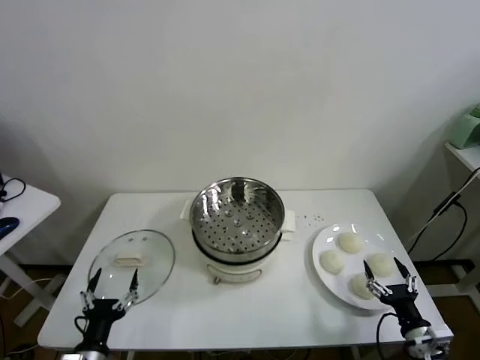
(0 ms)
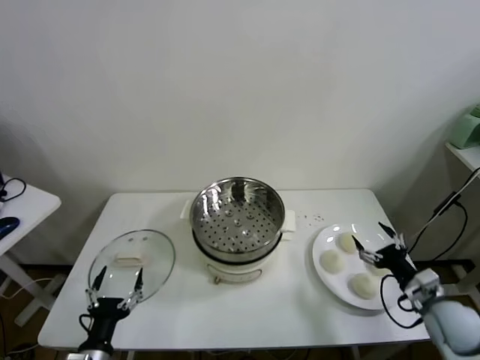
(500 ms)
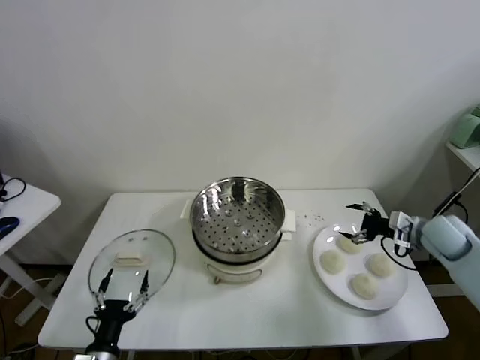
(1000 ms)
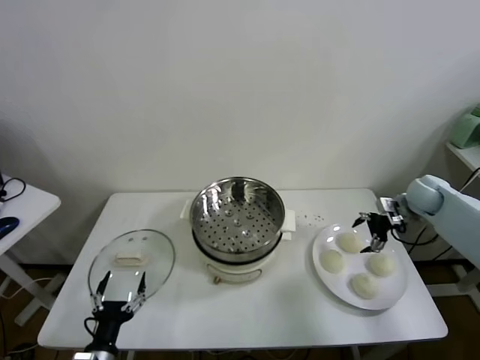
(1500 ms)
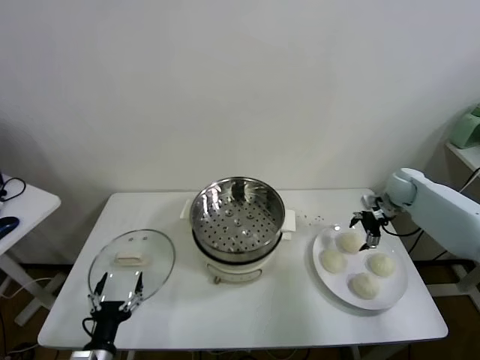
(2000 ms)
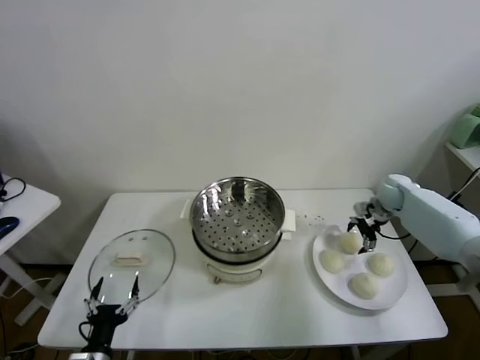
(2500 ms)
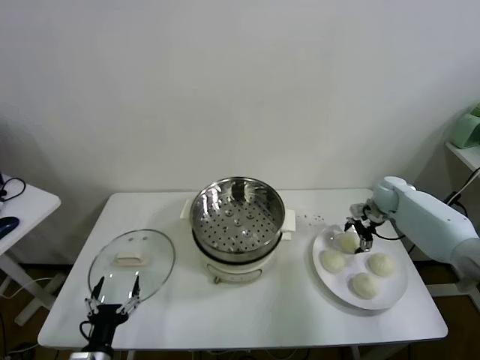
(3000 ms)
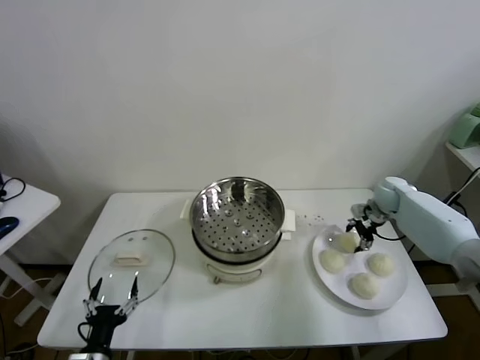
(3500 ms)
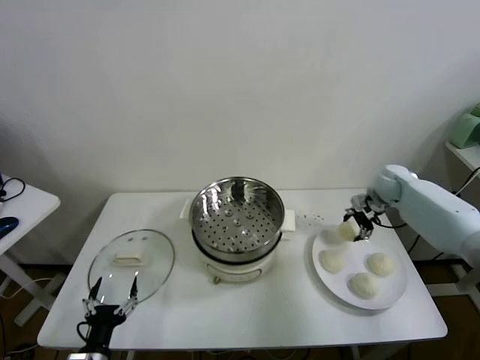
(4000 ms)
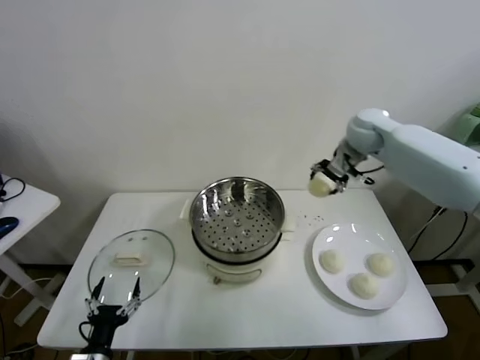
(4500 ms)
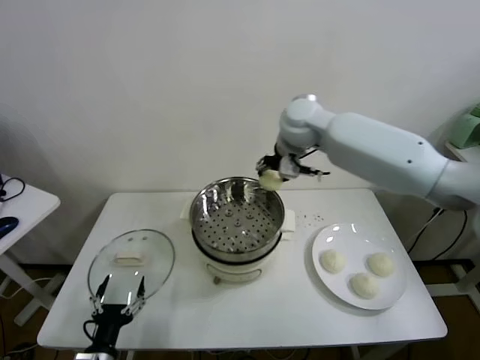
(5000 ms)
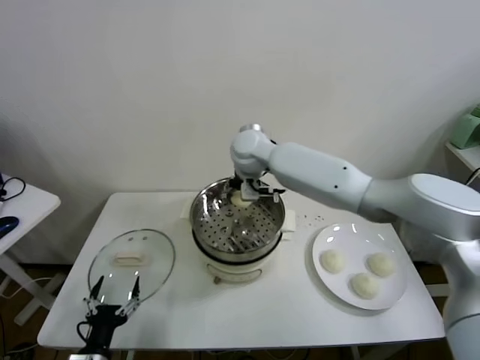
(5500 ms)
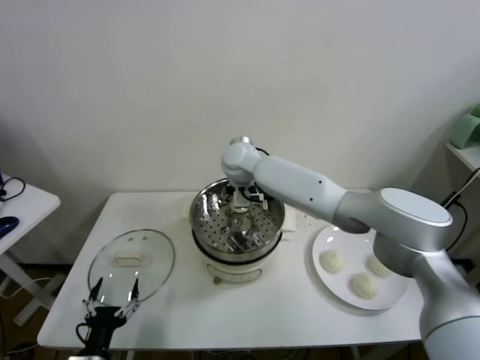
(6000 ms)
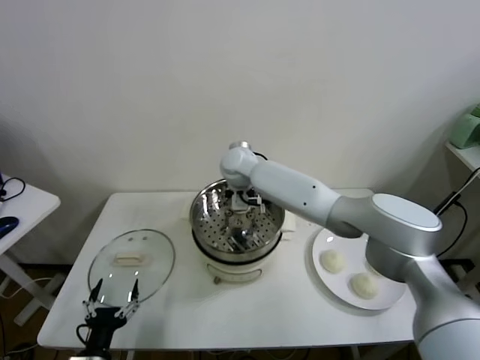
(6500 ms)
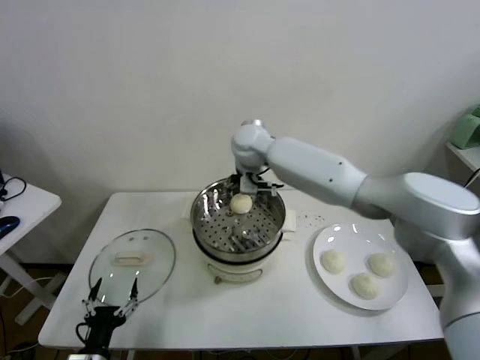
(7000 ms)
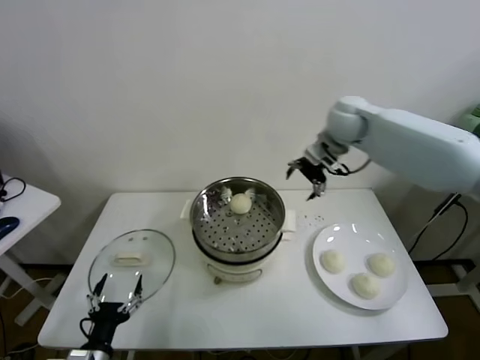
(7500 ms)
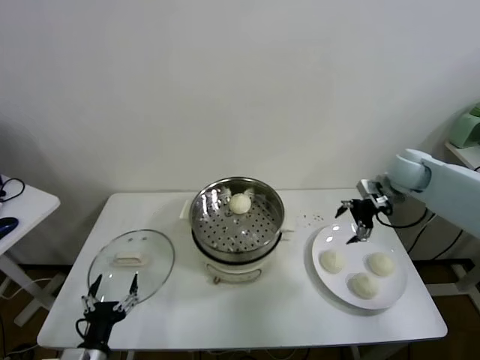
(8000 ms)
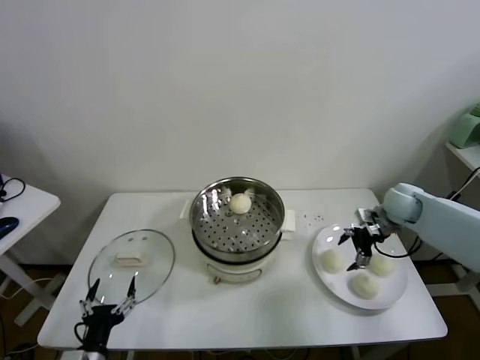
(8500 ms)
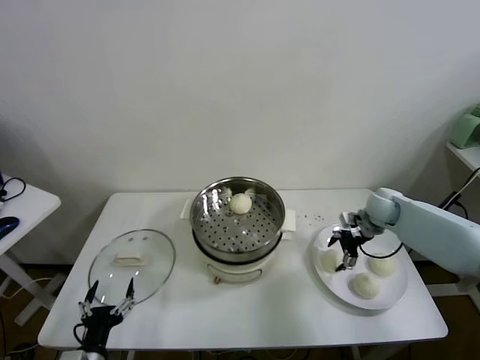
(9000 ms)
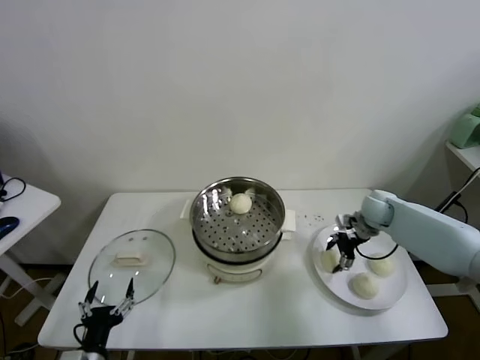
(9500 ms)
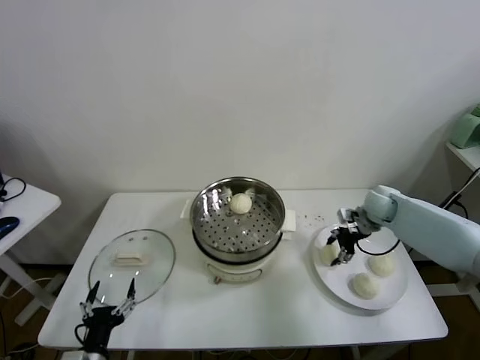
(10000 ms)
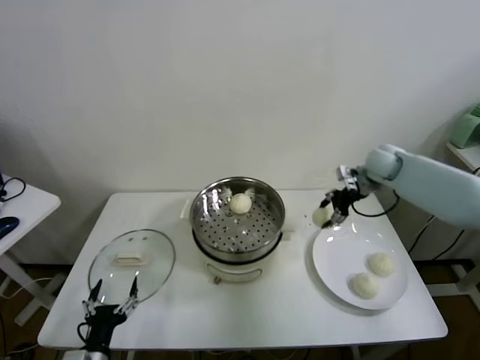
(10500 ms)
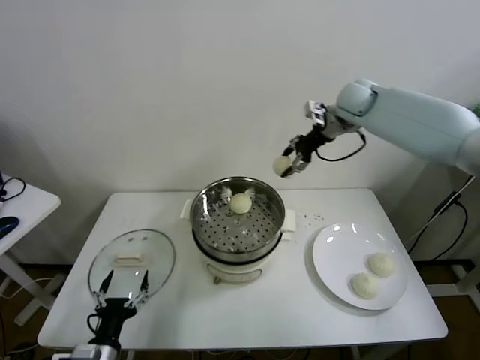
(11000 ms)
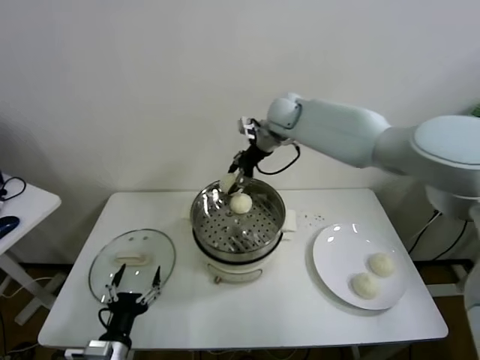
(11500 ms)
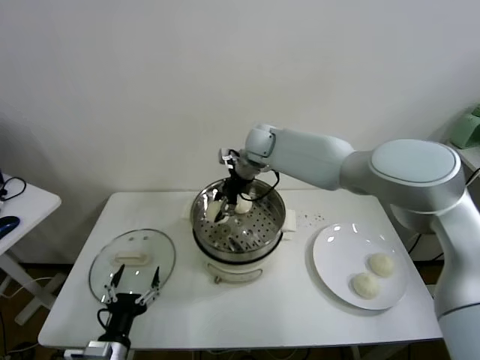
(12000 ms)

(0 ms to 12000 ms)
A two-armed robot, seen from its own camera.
Task of the whole recording: take steamed baozi put them in steamer.
Step, 0 ms - 3000 ms: Grasp the baozi in the plate with right gripper.
Step, 3500 ms - 6500 ms: Place the baozi on the steamer with right gripper.
Step, 7000 ms - 9000 ms: Grasp the baozi in the plate with right gripper.
2000 ms - 4000 ms: The right gripper shifts by about 5 cm, and closes its fingers.
4000 ms - 6000 ms: The right gripper shifts some 40 cm to the left.
6000 ms - 8000 ms: The right gripper goes approximately 40 cm to the right, and opens its fingers.
8000 ms - 10000 ms: The right gripper shifts approximately 10 cm downward, and closes its fingers.
10000 ms - 12000 ms: The right gripper heads to the left and upward, covering about 35 cm.

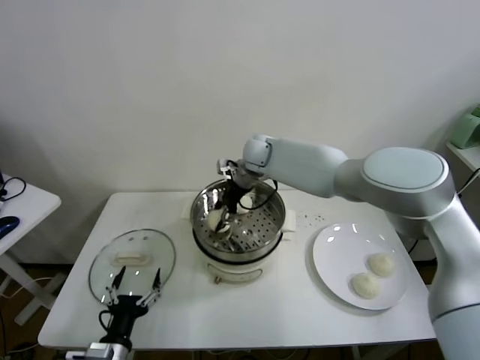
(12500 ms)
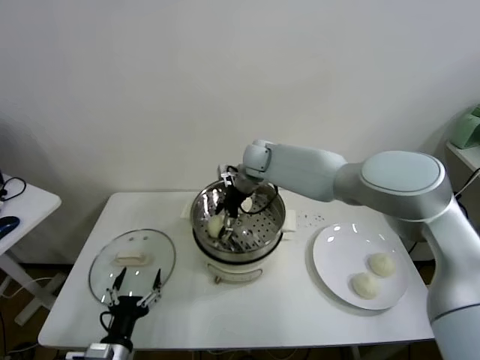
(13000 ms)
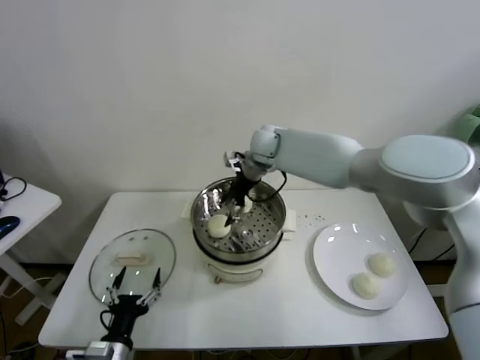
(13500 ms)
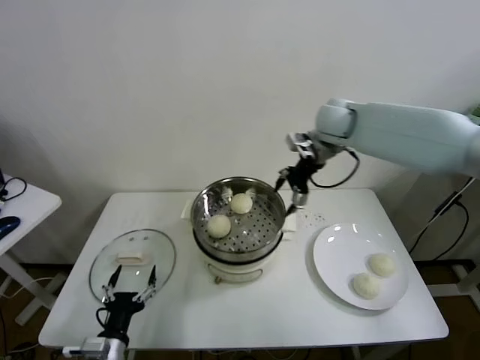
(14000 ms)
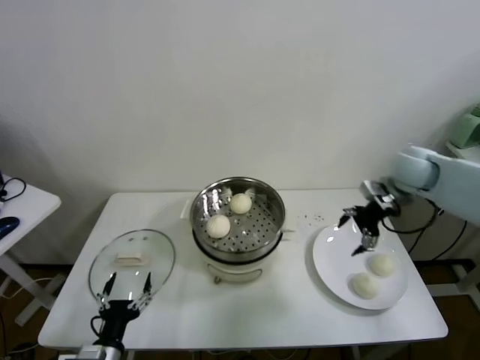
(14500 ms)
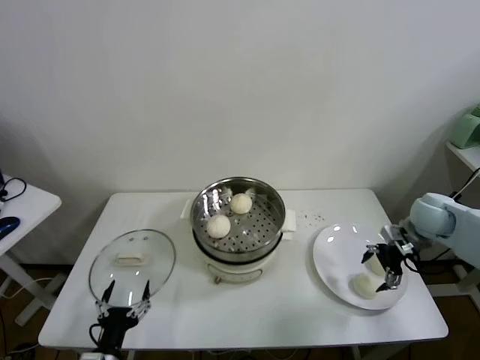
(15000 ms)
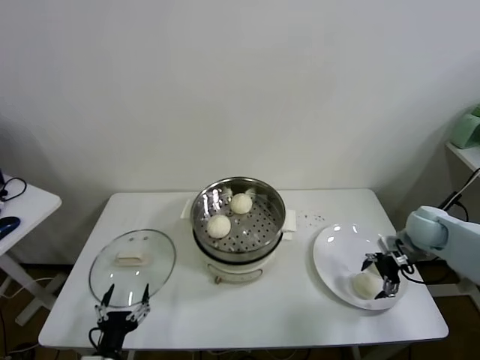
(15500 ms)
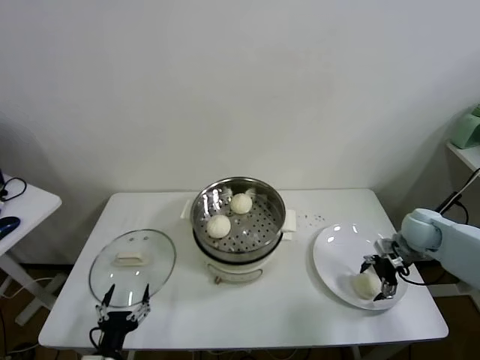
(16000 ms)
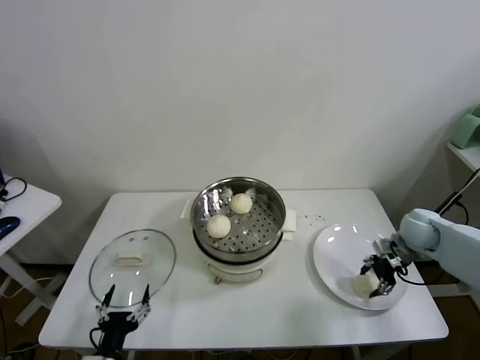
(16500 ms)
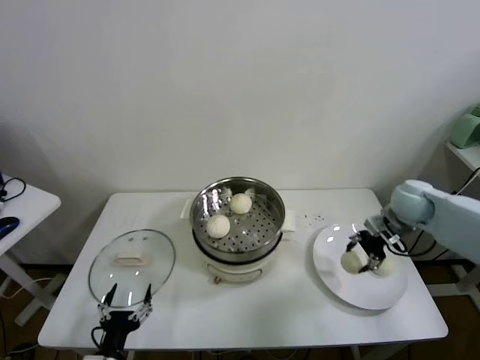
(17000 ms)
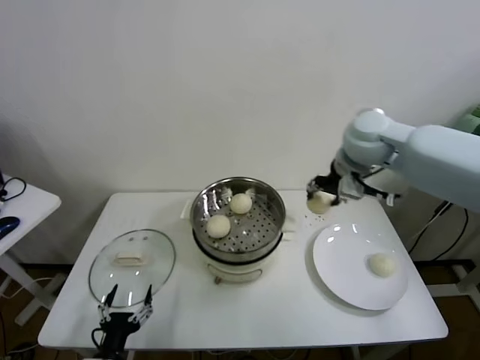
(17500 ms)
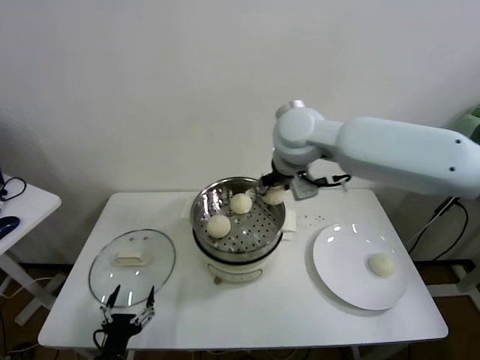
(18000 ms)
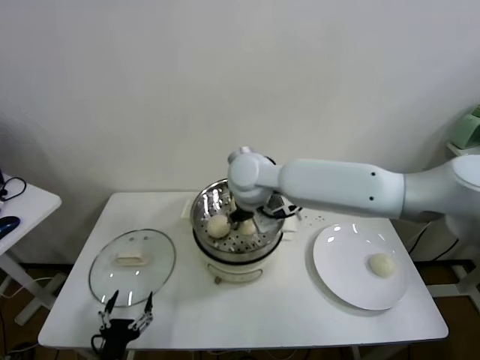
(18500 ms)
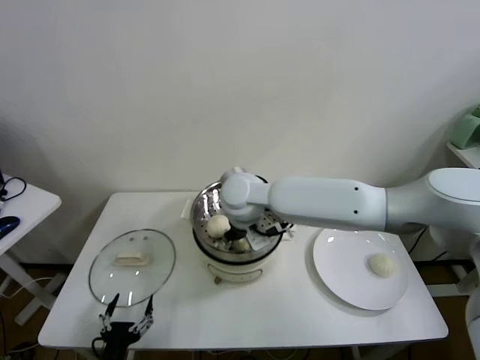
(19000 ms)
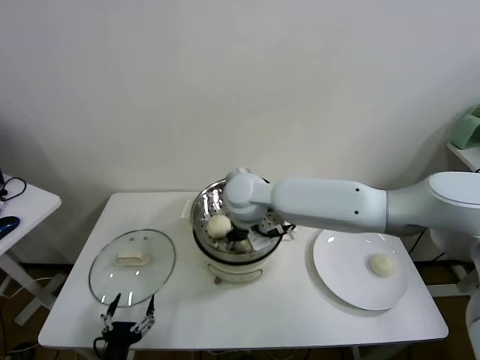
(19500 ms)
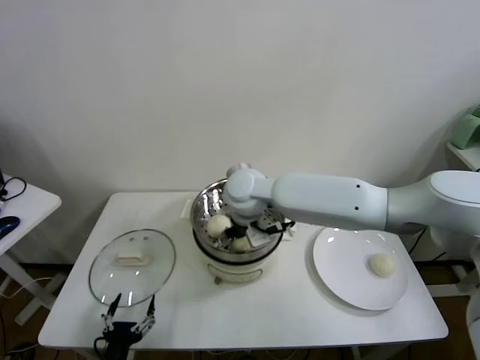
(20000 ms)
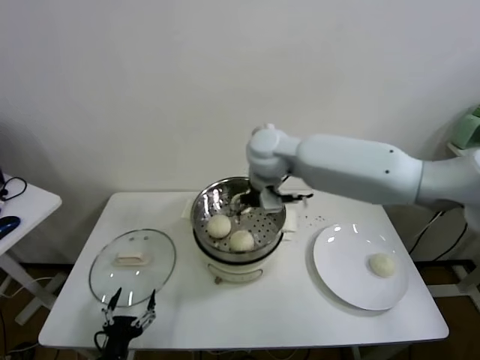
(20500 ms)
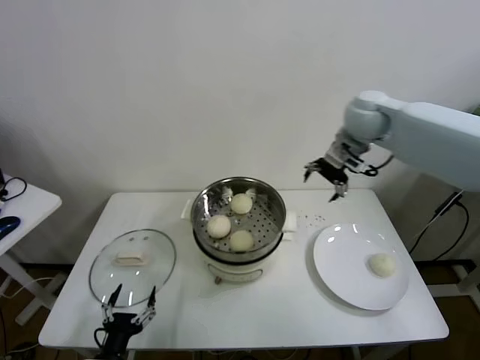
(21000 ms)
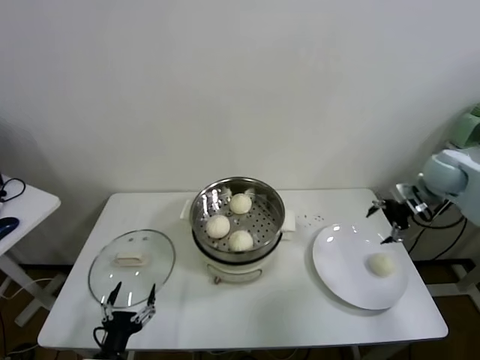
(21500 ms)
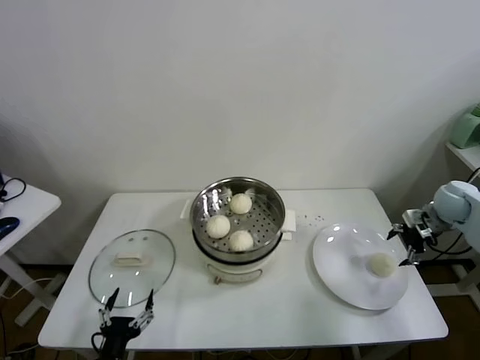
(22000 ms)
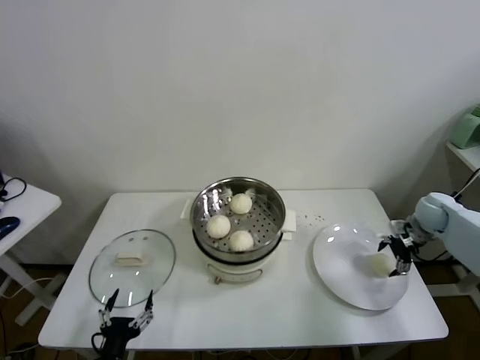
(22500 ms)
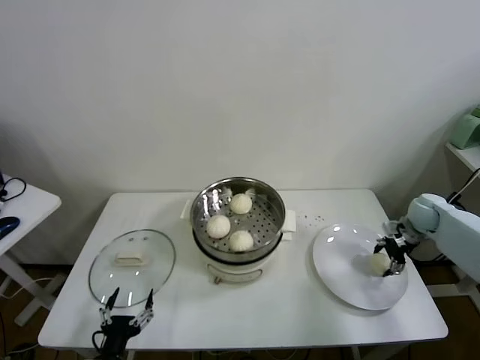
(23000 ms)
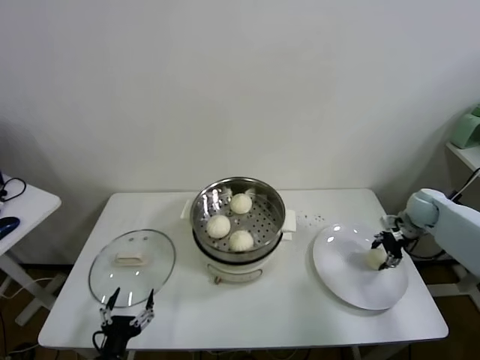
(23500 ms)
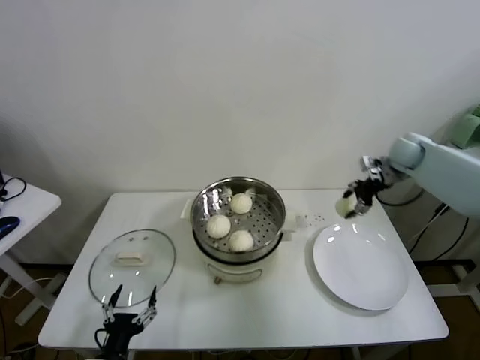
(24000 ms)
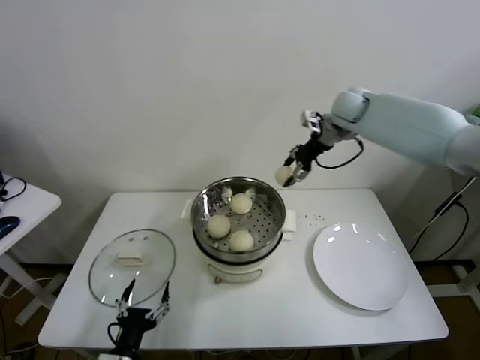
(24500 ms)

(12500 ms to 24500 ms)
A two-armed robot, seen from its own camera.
Task of the whole recording: take steamed baozi put them in steamer.
Step, 13500 ms - 16000 ms: Grasp the baozi in the plate with right gripper.
Step, 16500 ms - 19500 ms: Place the baozi on the steamer with right gripper.
Step, 20000 ms - 22500 ms: Grasp the baozi in the plate with right gripper.
12500 ms - 14500 ms: The right gripper is displaced to the right by about 35 cm, and opens its fingers.
14500 ms - 16500 ms: The right gripper heads downward, covering roughly 15 cm, and closes its fingers.
16500 ms - 18500 ms: The right gripper heads to the left and upward, covering about 50 cm.
18500 ms - 20500 ms: The right gripper shifts by roughly 5 cm, and opens up.
20500 ms - 22500 ms: The right gripper travels to the right and downward by some 50 cm.
22500 ms - 24500 ms: The right gripper is displaced to the left, upward and forward by approximately 35 cm, and closes.

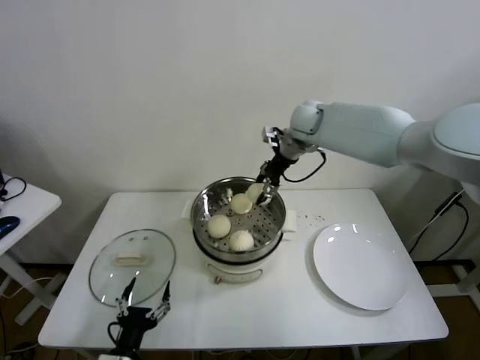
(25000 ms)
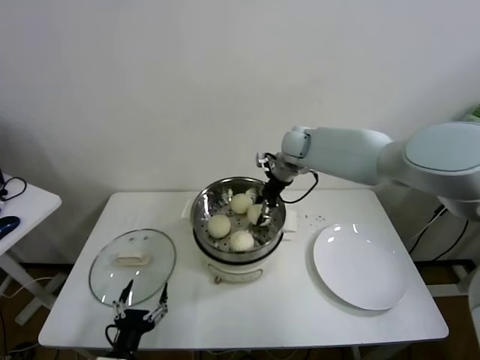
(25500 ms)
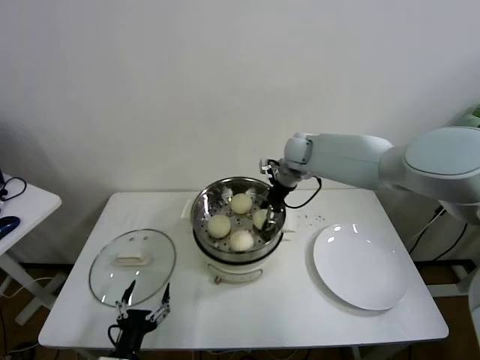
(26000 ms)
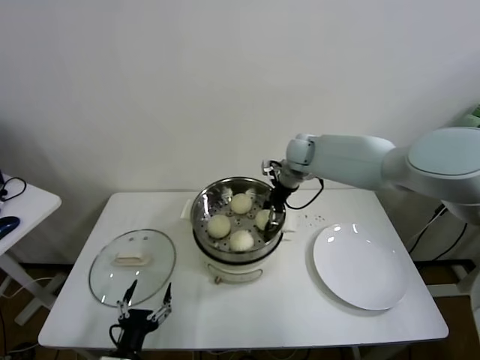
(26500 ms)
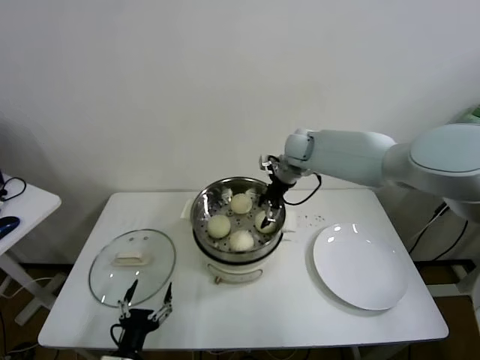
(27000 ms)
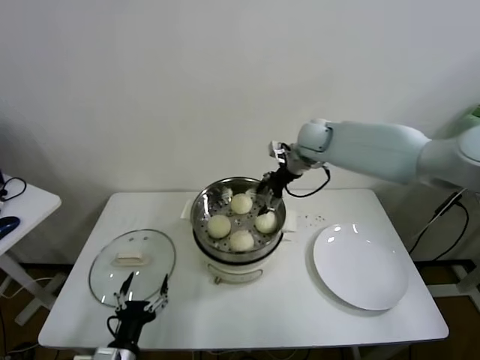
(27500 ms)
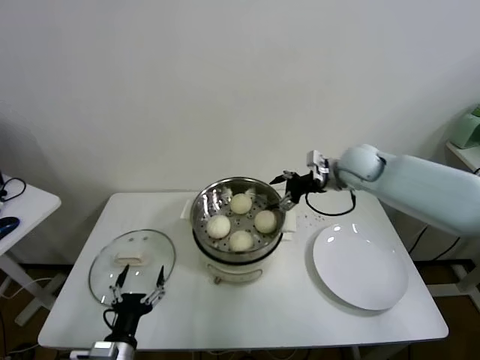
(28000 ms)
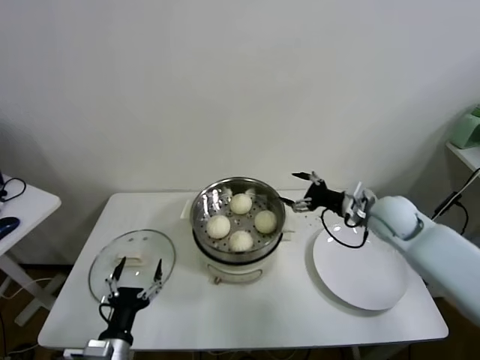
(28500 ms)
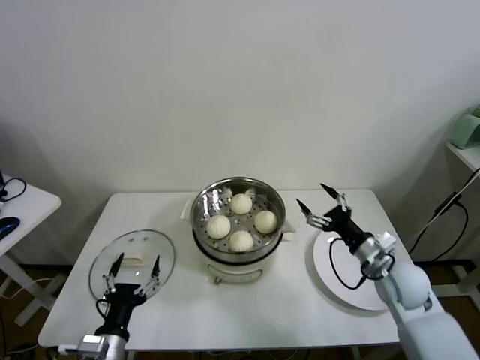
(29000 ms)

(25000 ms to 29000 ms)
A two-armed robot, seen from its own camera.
Task of the whole recording: take steamed baozi put them in steamer.
25000 ms - 27000 ms: The right gripper goes some 10 cm downward, and opens.
27000 ms - 29000 ms: The left gripper moves roughly 5 cm; the right gripper is displaced backward, to the right and downward by some 35 cm.
